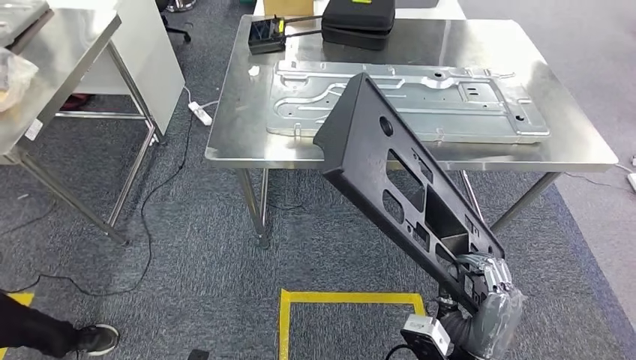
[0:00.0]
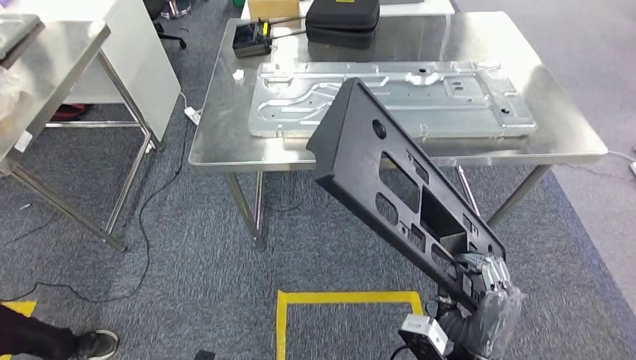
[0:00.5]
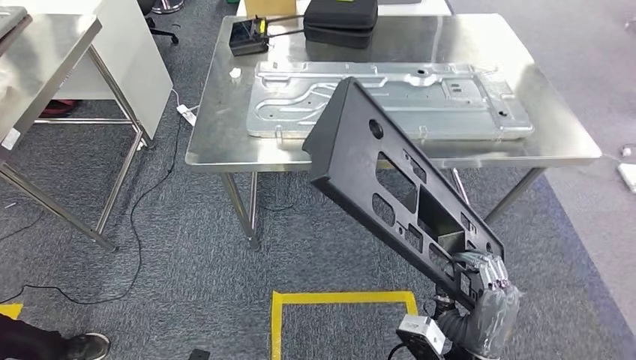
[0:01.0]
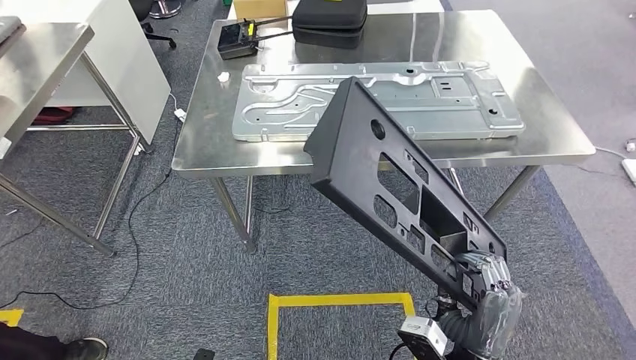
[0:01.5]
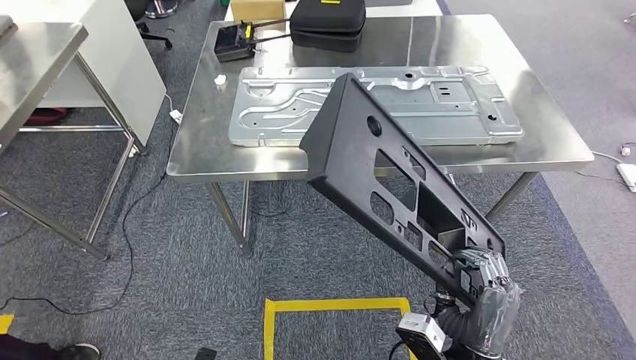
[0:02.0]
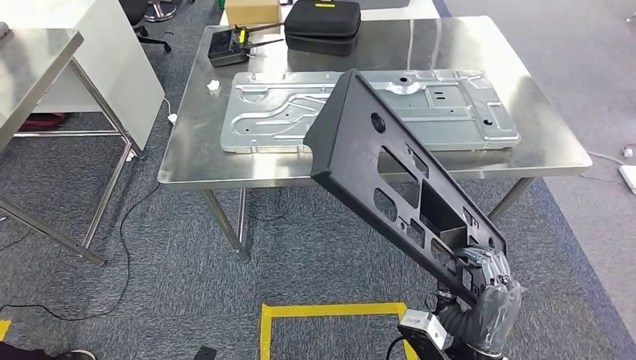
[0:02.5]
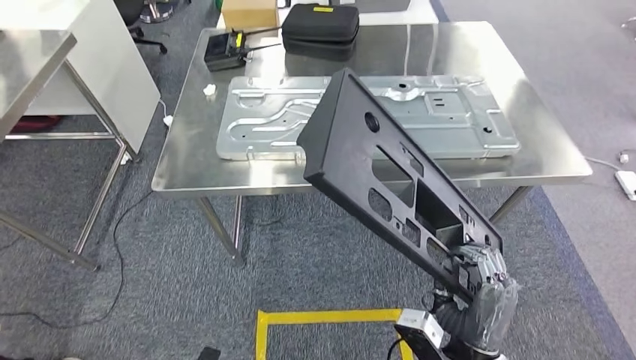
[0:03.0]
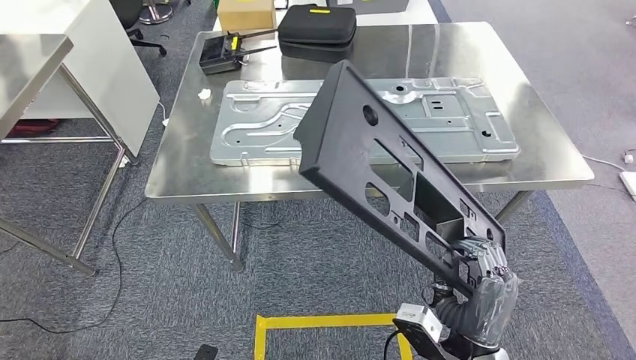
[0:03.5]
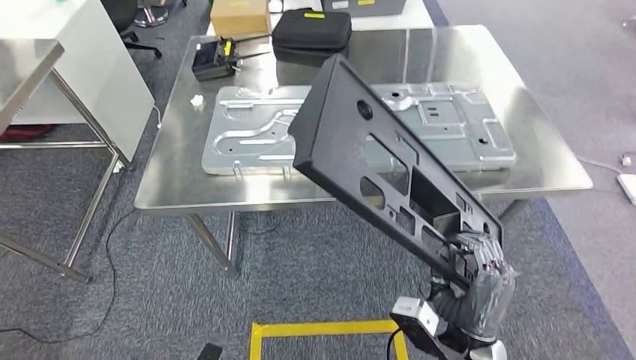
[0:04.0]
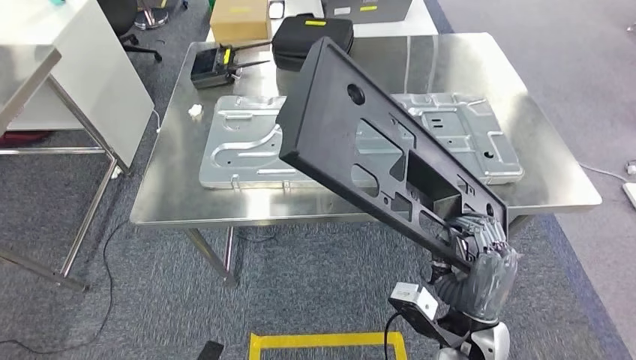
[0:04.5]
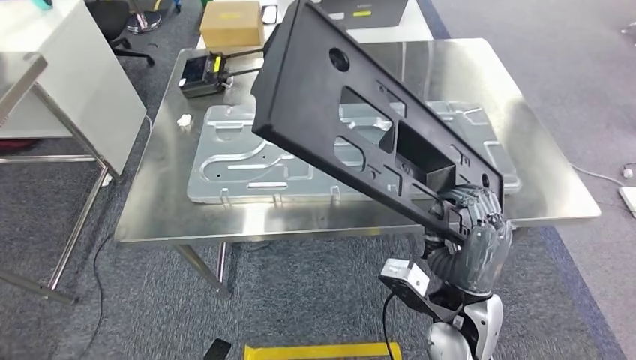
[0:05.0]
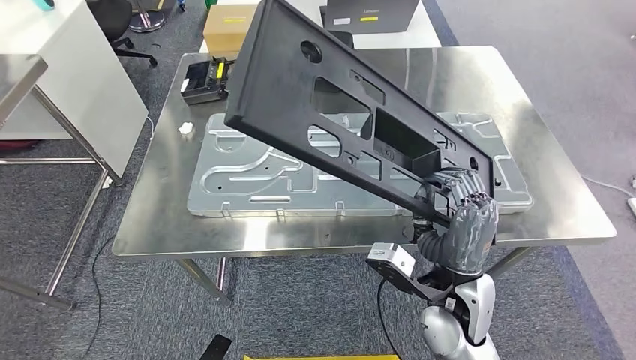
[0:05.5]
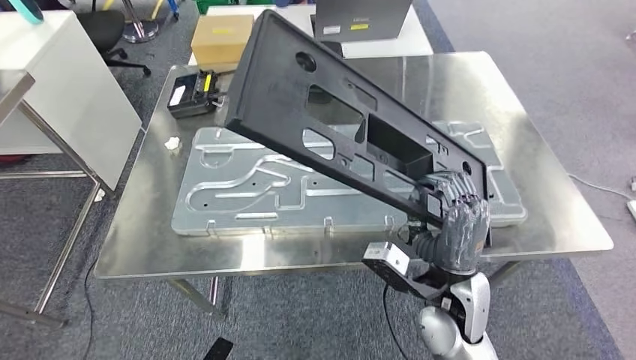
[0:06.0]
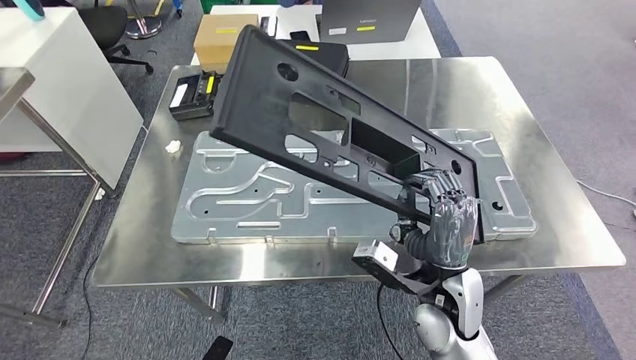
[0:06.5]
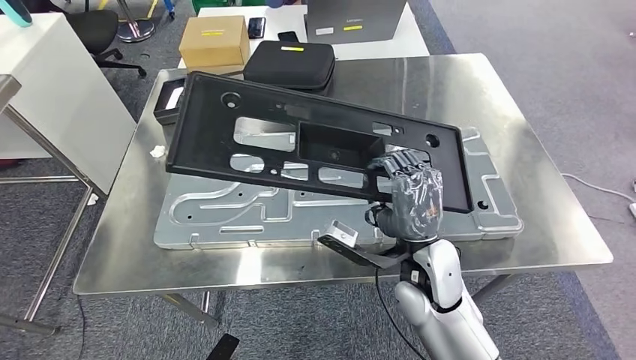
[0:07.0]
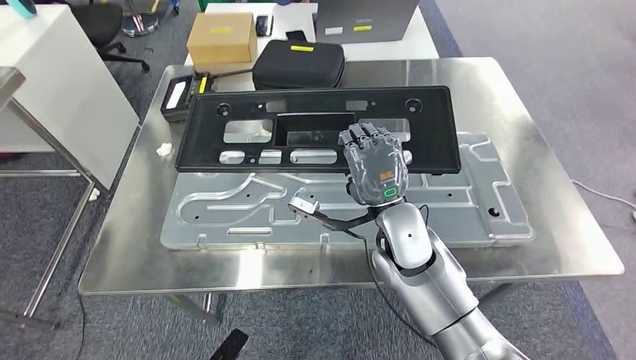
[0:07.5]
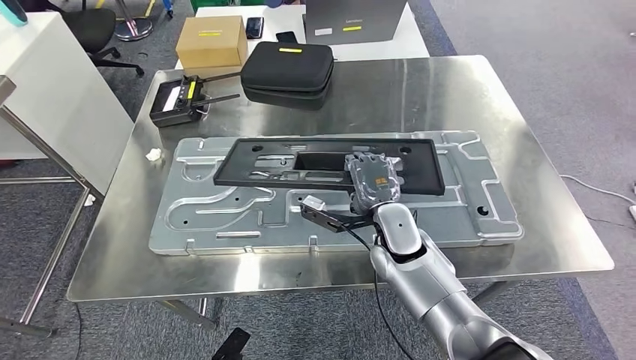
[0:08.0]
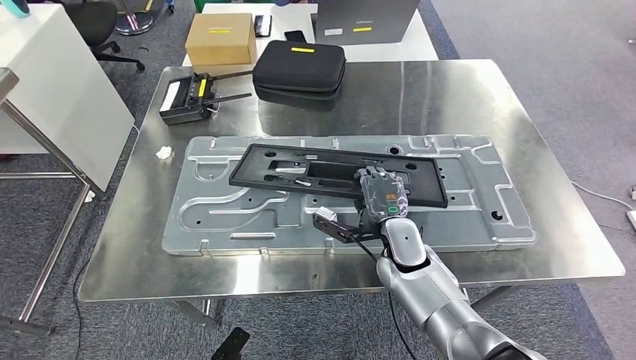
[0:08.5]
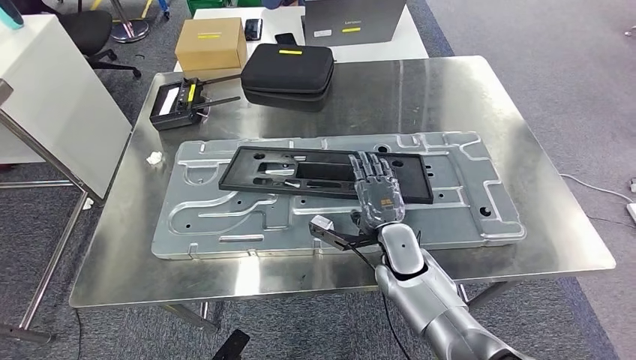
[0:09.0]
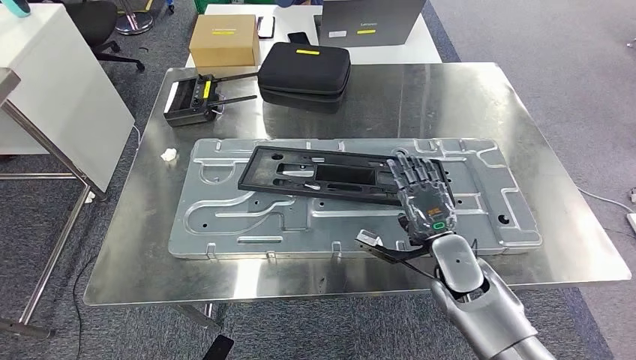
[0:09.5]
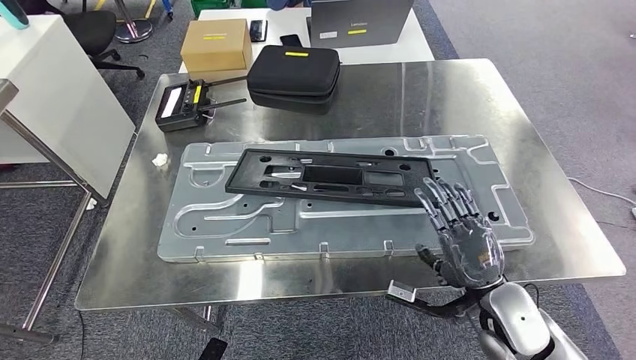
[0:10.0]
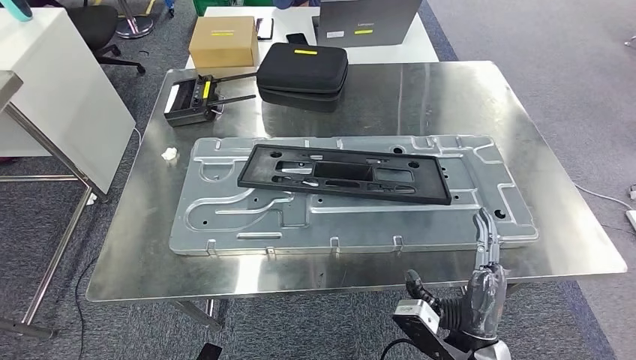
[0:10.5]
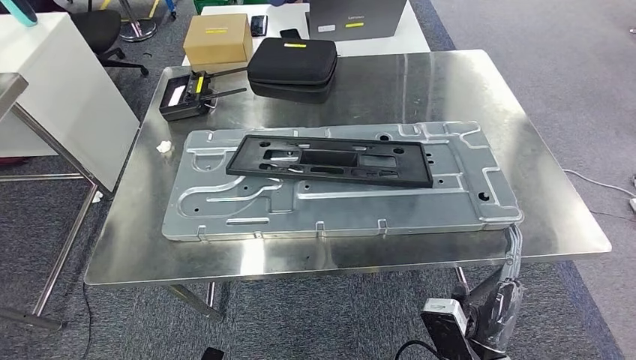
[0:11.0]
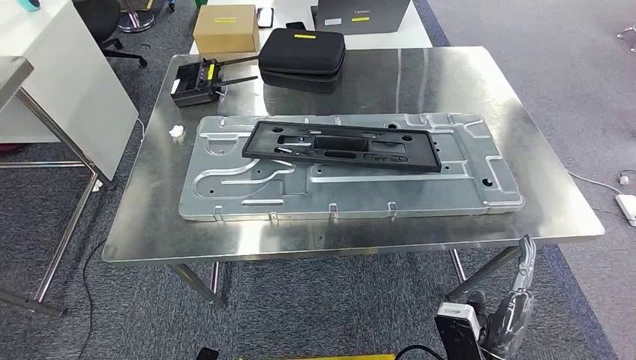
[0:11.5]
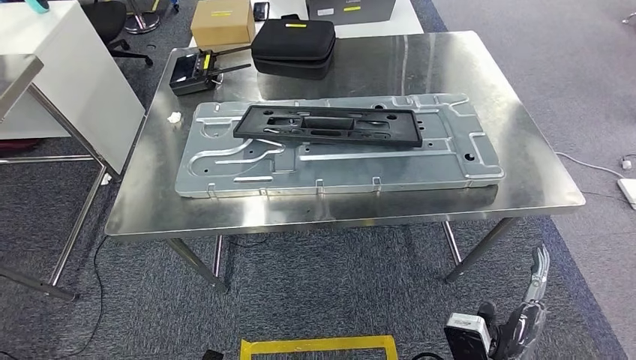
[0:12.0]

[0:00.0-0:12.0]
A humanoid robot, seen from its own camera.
Step, 0:05.5 to 0:10.5: Insert the large material into the corresponding slot on the workbench.

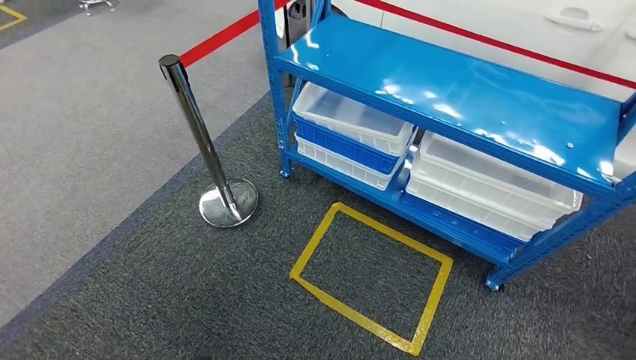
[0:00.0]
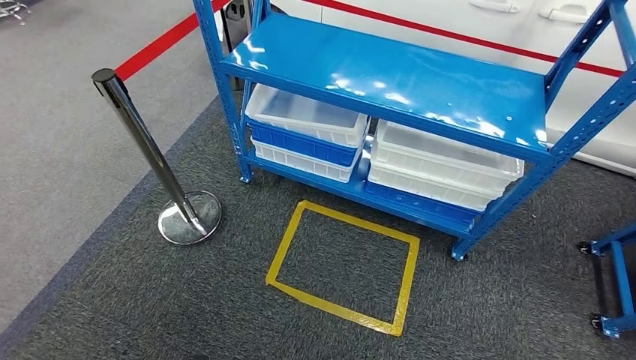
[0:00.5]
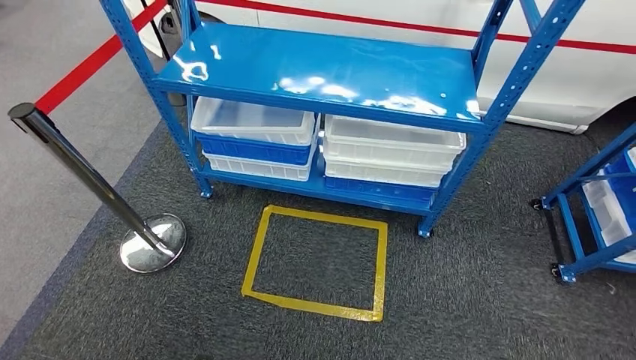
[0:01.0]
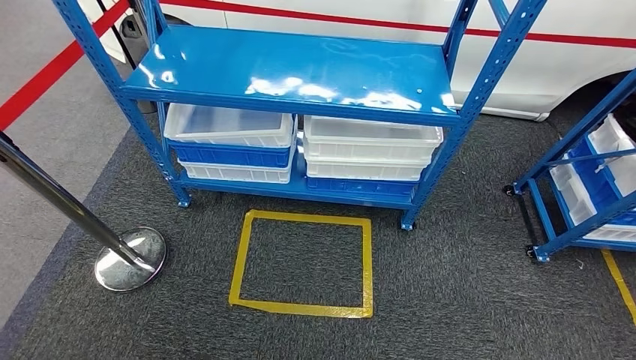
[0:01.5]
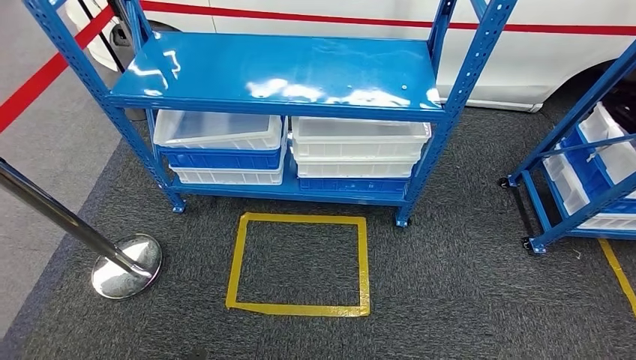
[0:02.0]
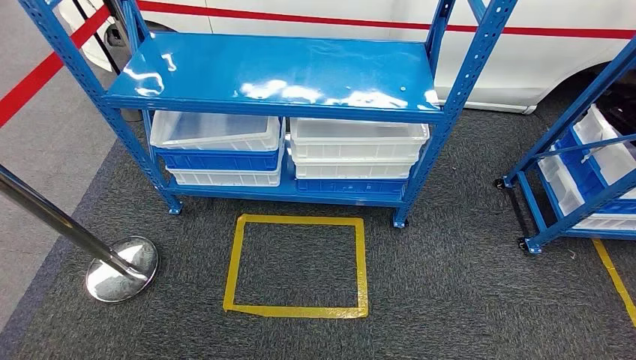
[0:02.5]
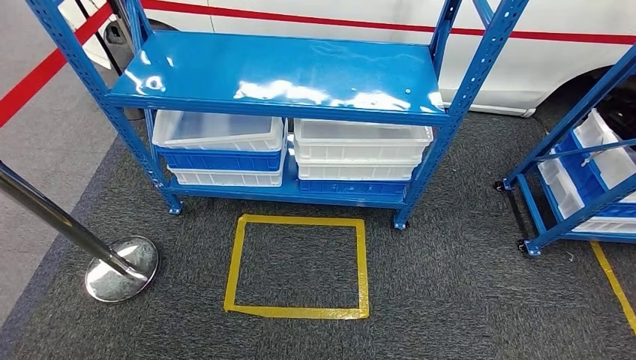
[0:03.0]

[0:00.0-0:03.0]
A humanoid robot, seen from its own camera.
Step, 0:00.0 to 0:03.0: Move to the initial position of the shelf.
